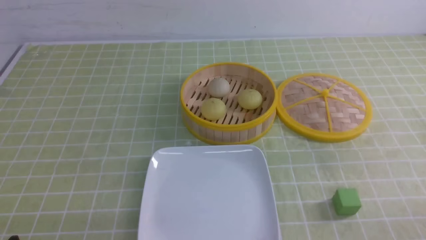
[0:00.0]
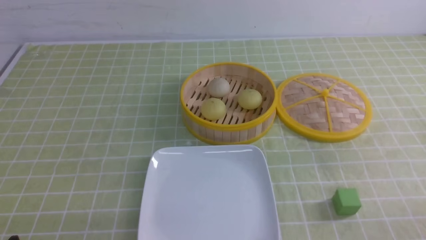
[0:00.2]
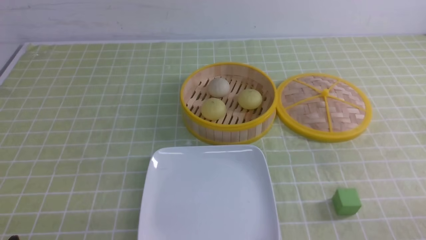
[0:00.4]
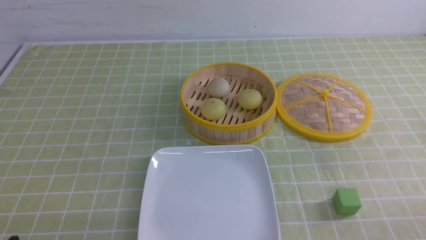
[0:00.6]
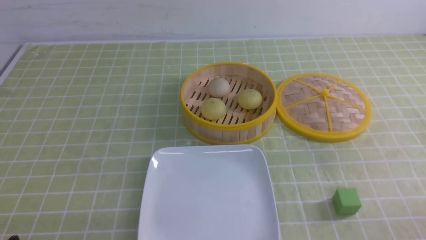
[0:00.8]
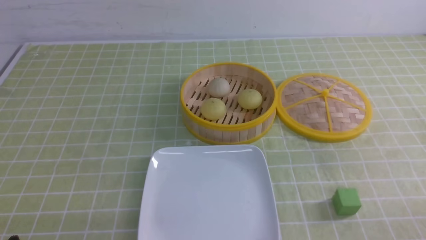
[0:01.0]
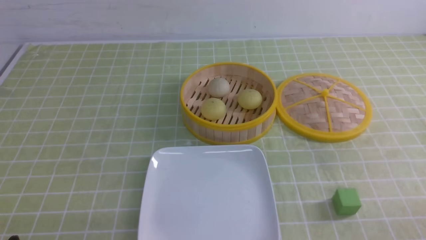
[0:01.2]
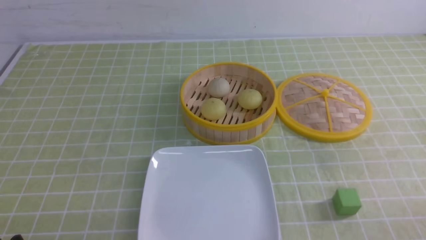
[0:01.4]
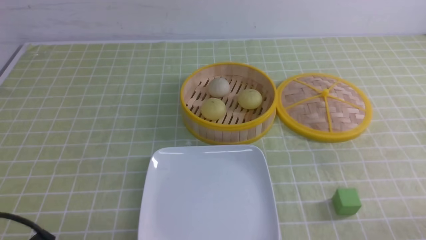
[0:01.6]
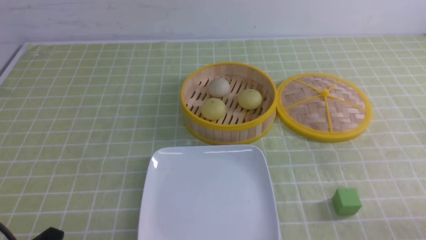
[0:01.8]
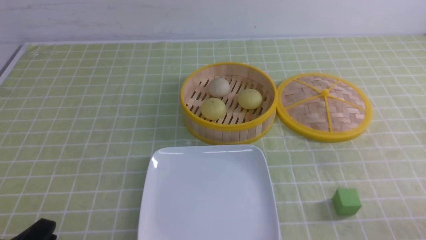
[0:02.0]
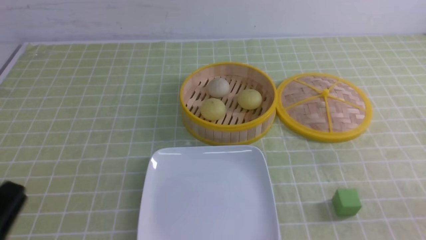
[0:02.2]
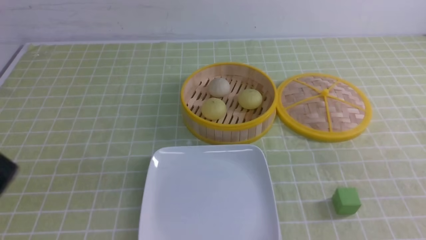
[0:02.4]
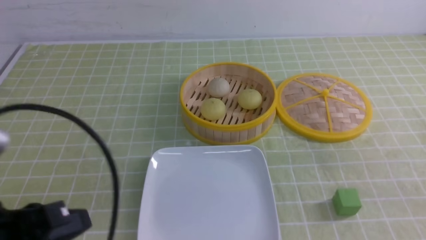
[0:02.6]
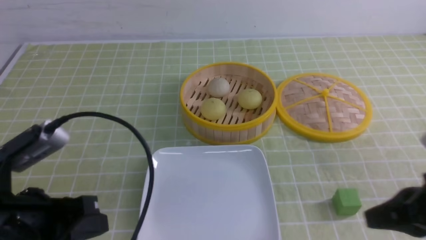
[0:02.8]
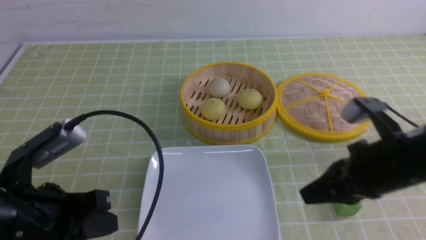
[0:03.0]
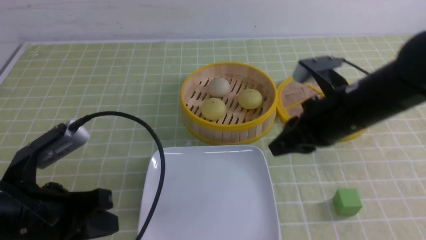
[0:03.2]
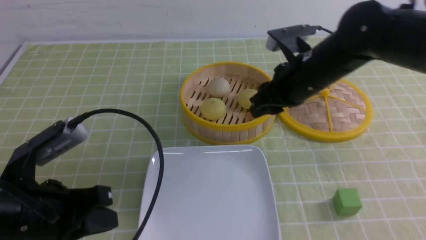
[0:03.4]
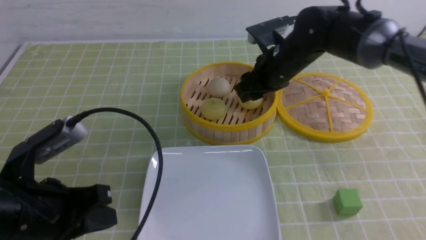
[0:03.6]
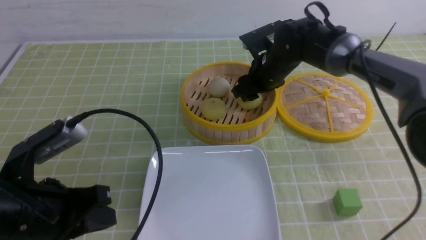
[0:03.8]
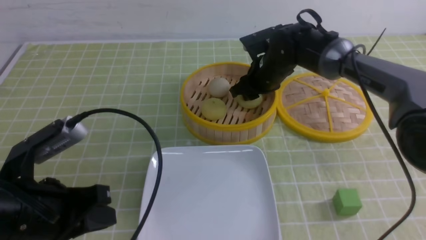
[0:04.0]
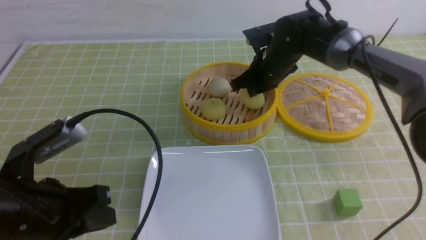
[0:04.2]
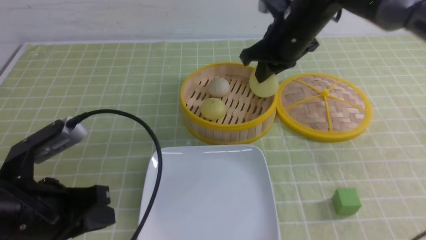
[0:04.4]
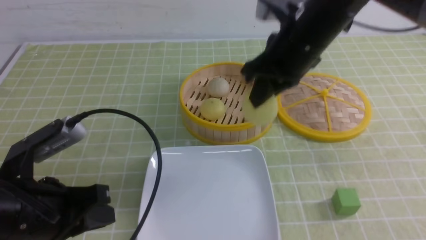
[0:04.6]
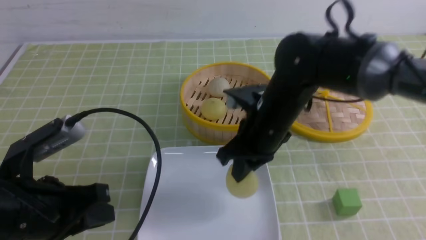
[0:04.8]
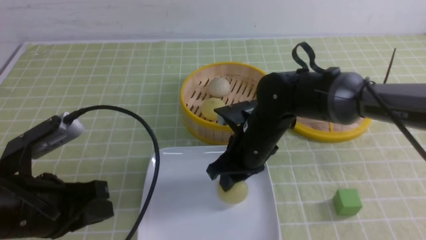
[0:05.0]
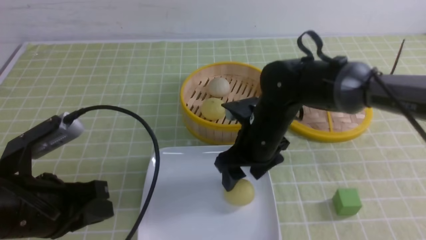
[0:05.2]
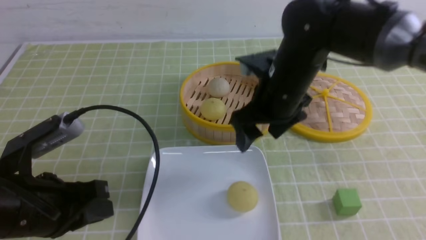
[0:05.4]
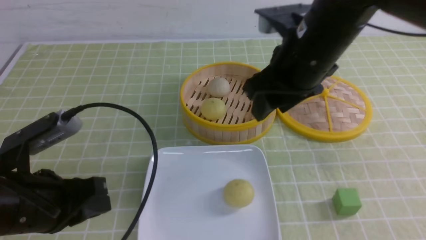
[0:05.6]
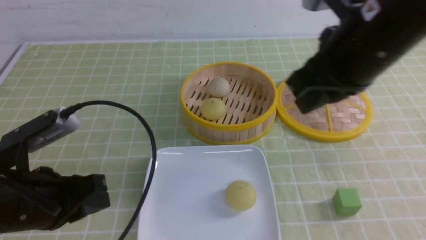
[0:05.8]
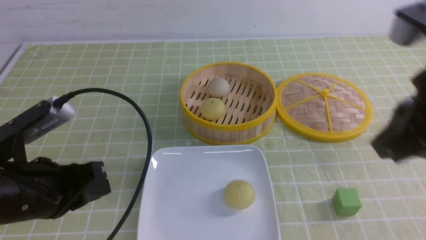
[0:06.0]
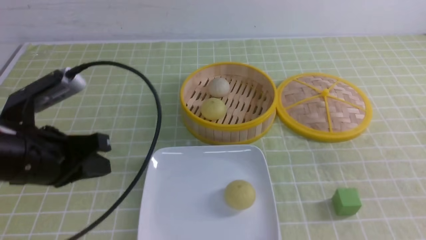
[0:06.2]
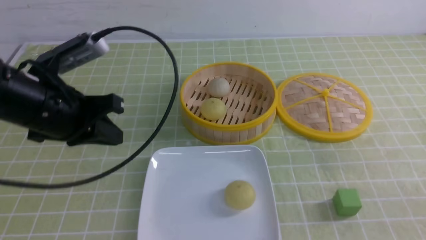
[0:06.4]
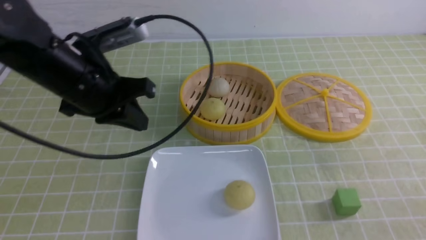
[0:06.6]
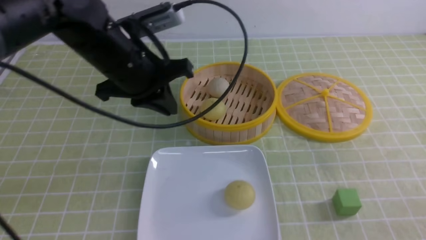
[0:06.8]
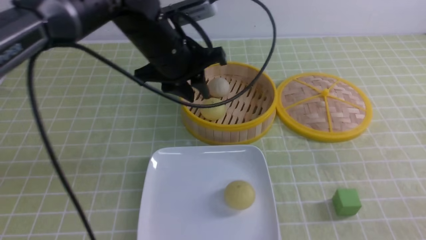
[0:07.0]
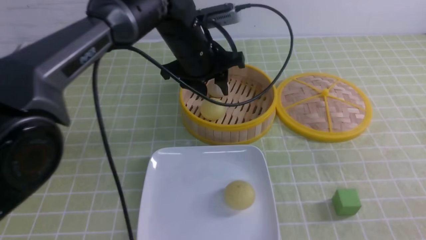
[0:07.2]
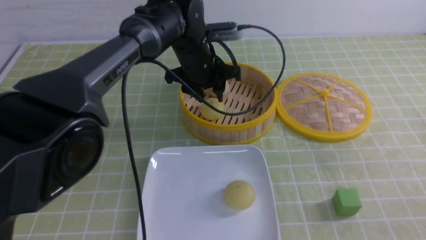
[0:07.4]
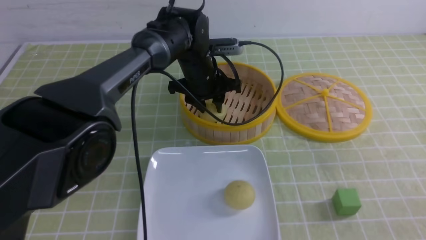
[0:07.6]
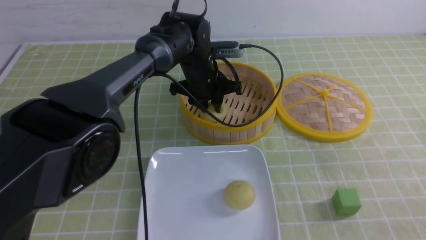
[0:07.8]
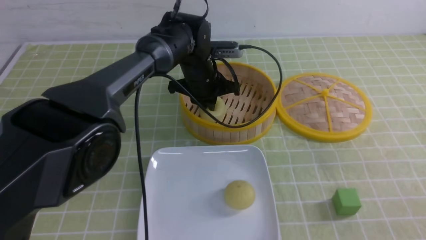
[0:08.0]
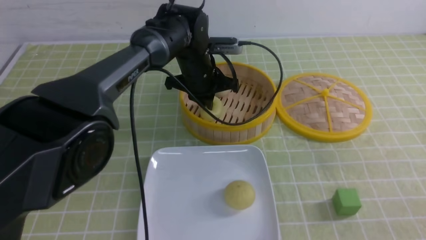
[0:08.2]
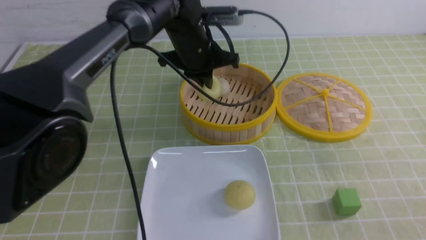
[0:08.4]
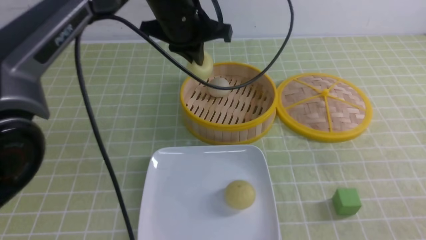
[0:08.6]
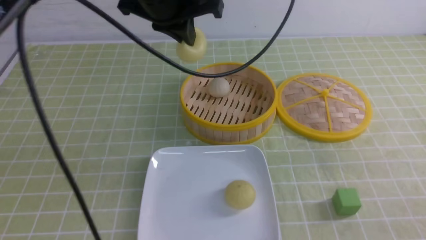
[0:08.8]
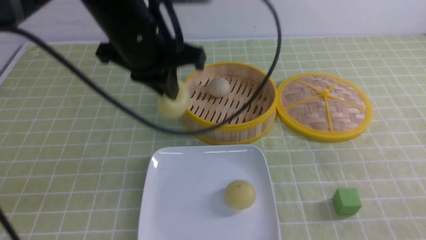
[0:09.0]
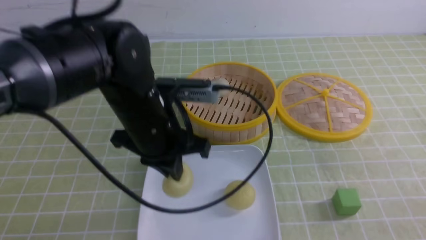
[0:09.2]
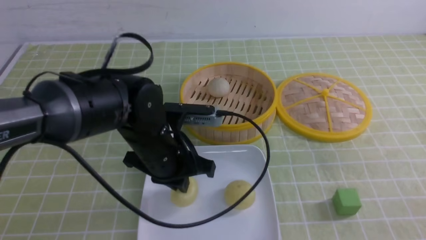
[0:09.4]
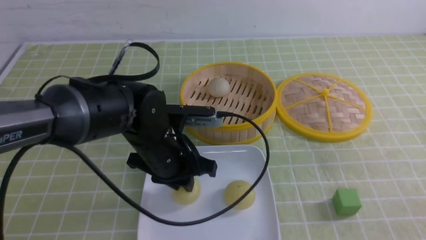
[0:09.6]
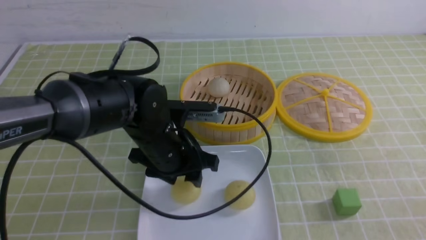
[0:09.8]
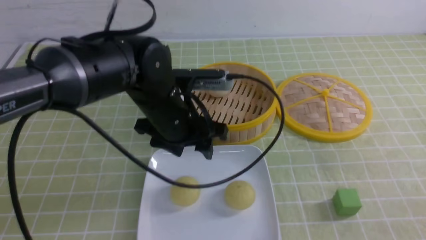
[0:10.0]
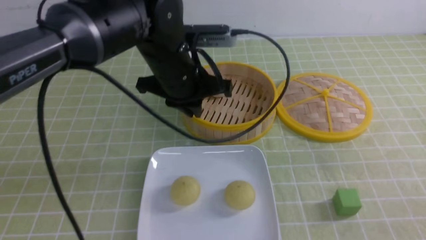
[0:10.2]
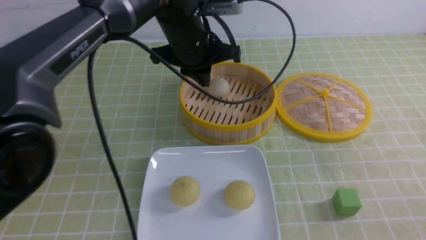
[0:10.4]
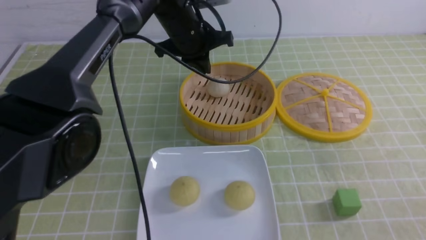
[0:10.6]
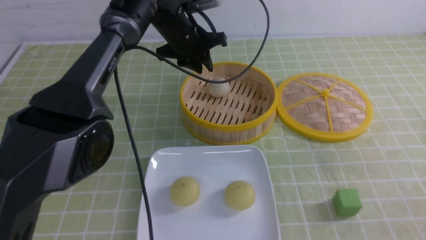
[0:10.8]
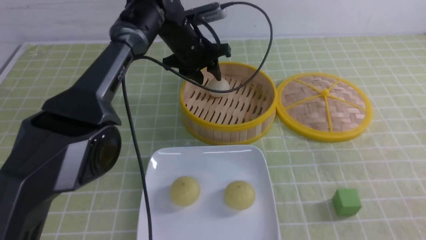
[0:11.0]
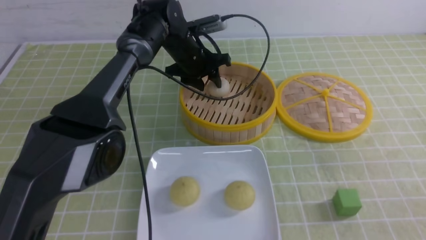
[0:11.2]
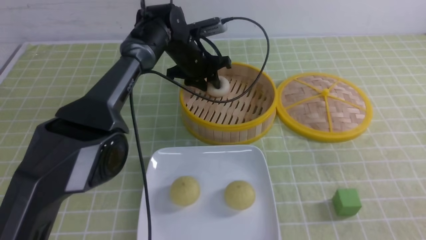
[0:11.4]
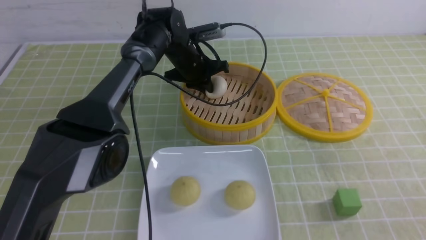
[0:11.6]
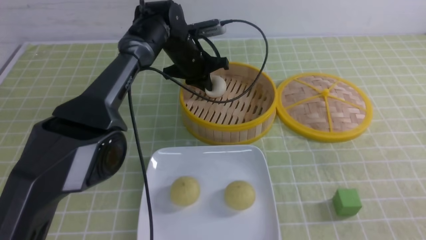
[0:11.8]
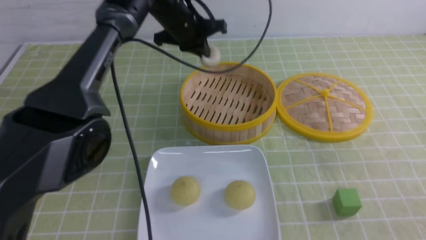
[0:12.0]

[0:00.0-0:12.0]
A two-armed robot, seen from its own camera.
Step, 0:00.0 to 0:04.0: use the right arm to grab the steamed stuffed bun that is closest to it.
Step, 0:04.2 to 0:05.0: use the right arm to put the steamed stuffed bun into the plate.
Step, 0:05.2 to 0:08.0: use the left arm to grab the steamed stuffed bun that is closest to it.
Step, 0:08.2 to 0:09.6: use the left arm to put the steamed stuffed bun into the plate.
Step, 0:09.8 to 0:11.6: use the left arm to grab the steamed stuffed bun that is closest to it.
0:01.6 to 0:03.0: The right gripper is displaced forward, to the left and upward by some 20 cm, and closes, while the left gripper moves forward and upward, approximately 10 cm, and closes up.
0:03.0 to 0:04.4: The right gripper heads forward and to the left, covering some 20 cm, and opens, then closes once more.
0:04.4 to 0:06.0: The right gripper travels backward and to the right by some 25 cm, and opens and closes again.
0:06.0 to 0:07.6: The left gripper goes about 35 cm forward and to the right, and opens up. The right gripper is displaced backward, downward and to the right by roughly 20 cm.
0:07.6 to 0:09.0: The left gripper heads backward, upward and to the left, covering about 20 cm, and closes.
0:09.0 to 0:10.4: The left gripper shifts about 10 cm forward, and opens and closes again.
0:10.4 to 0:12.0: The left gripper travels forward by approximately 5 cm, moves about 10 cm downward and comes back, and opens and closes again.

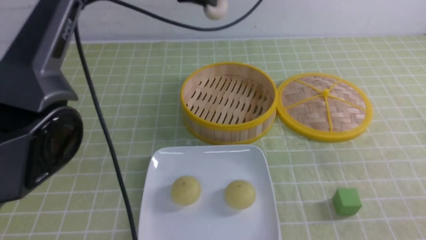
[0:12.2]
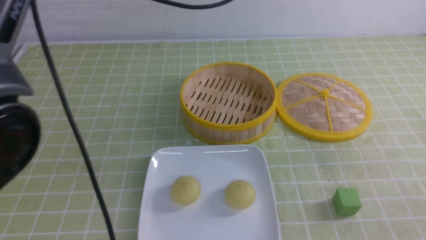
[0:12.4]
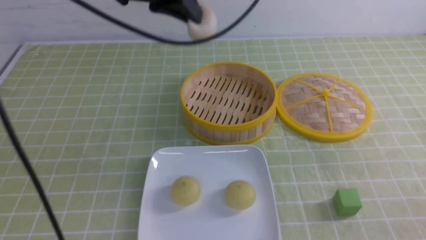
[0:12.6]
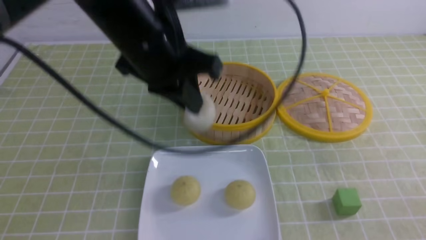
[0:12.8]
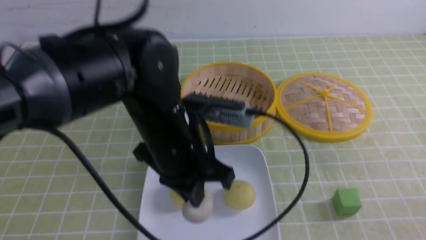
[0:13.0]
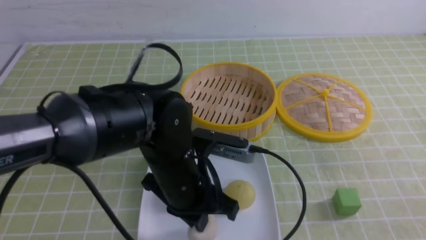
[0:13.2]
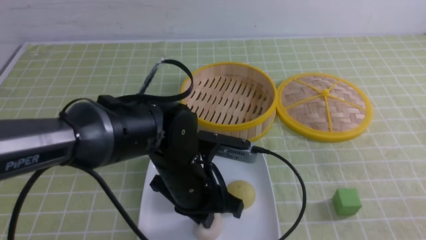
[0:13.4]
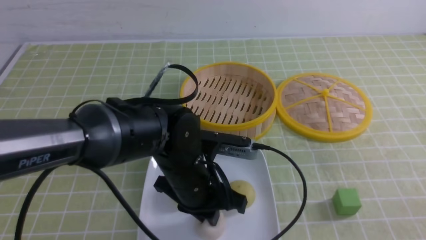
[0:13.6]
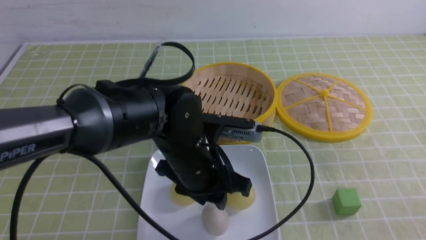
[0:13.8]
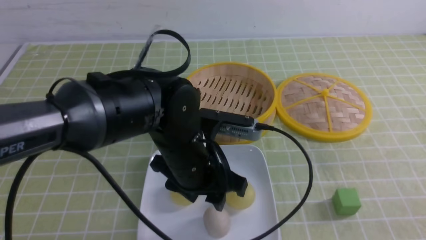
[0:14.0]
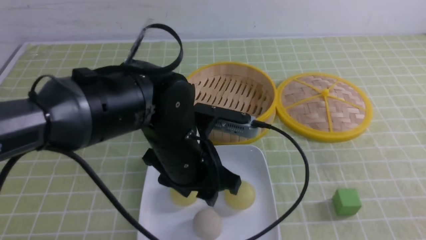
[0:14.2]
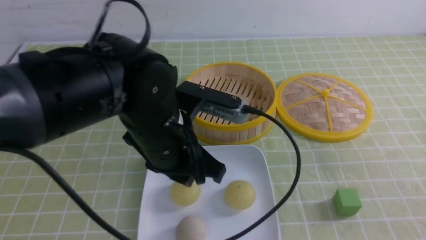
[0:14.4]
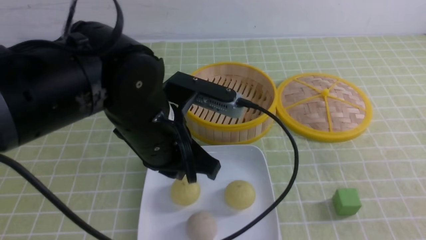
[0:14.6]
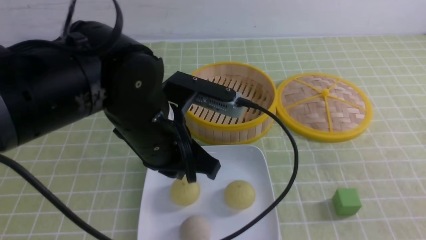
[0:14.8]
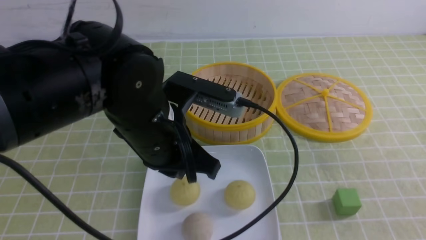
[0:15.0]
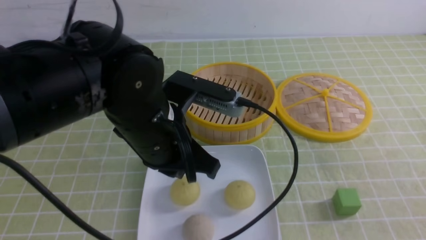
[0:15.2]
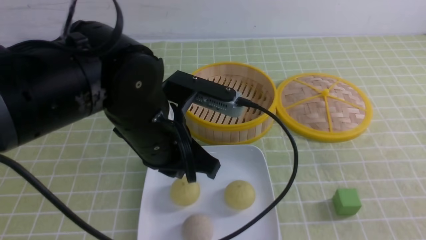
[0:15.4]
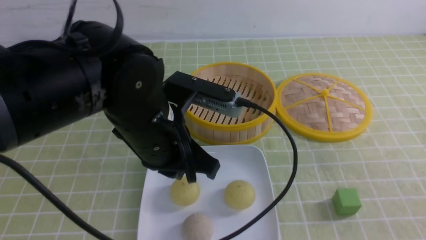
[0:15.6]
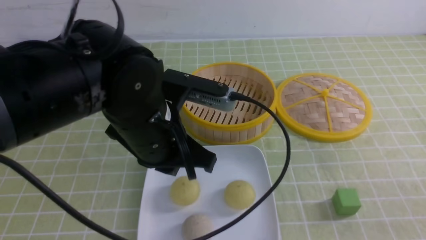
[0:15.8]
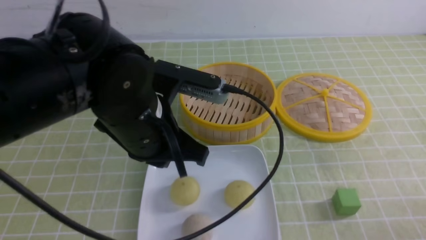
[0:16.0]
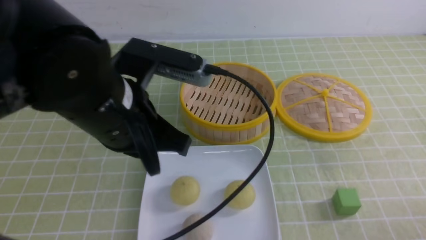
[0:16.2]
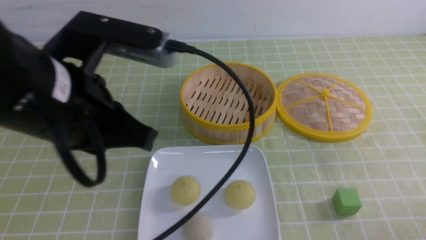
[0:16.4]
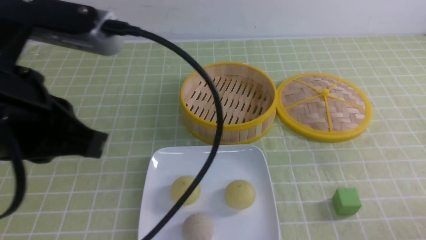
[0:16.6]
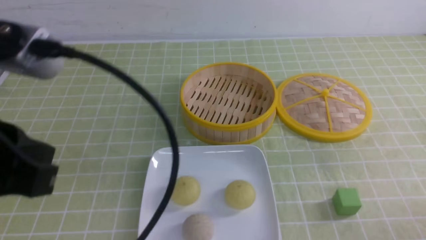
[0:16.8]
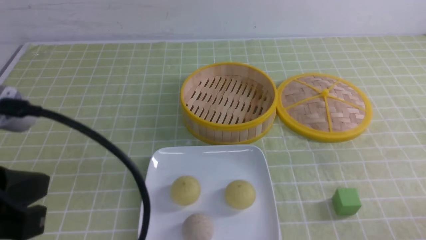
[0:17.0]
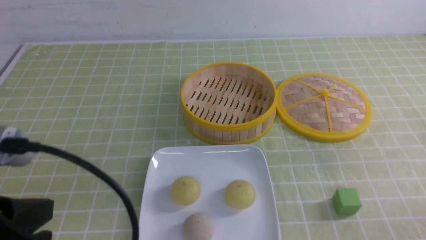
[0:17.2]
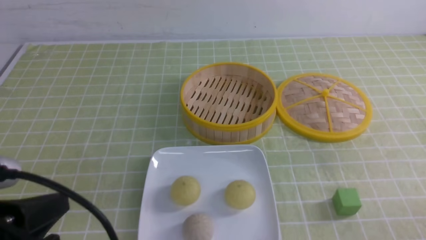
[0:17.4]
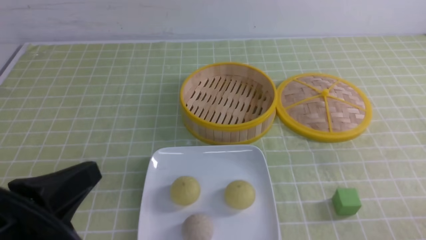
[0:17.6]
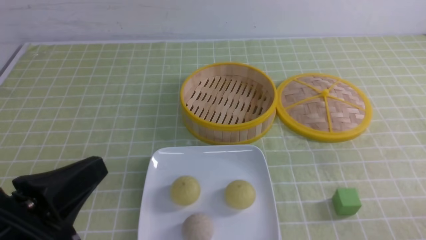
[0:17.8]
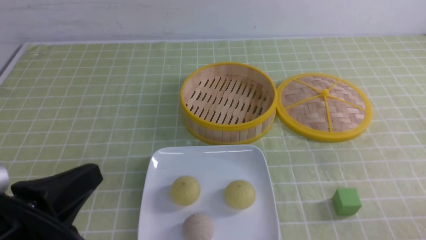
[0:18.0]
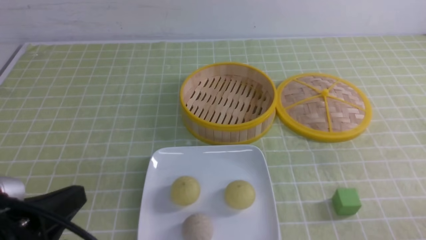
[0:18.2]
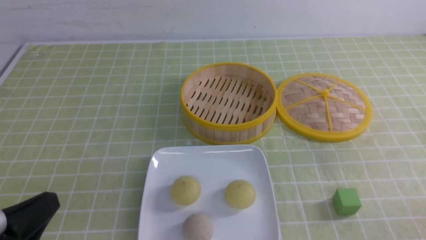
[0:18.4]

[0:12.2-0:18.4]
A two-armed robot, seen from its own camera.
Step, 0:12.2 to 0:13.8: use the left arm to put the steamed stuffed bun into the plate.
0:12.2 to 0:13.8: The left gripper moves backward and downward, roughly 25 cm, and opens up.
0:13.8 to 0:15.4: The left gripper shifts roughly 10 cm upward, and closes its fingers.
0:15.4 to 0:16.8: The left gripper goes some 20 cm to the left, backward and upward; the right gripper travels downward by about 10 cm.
0:16.8 to 0:18.4: The left gripper travels downward by about 15 cm.
